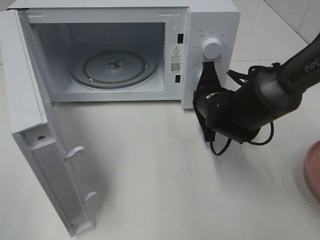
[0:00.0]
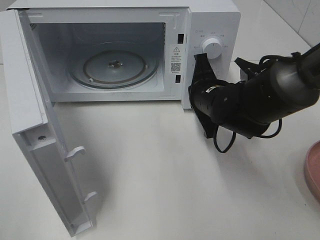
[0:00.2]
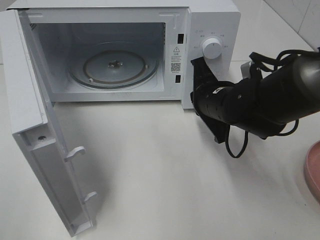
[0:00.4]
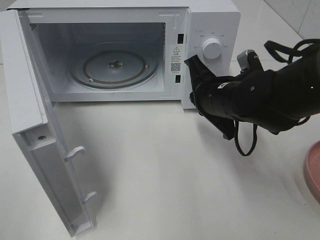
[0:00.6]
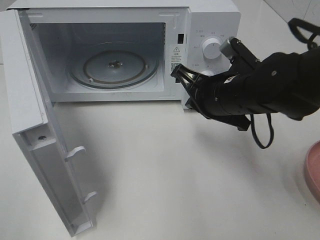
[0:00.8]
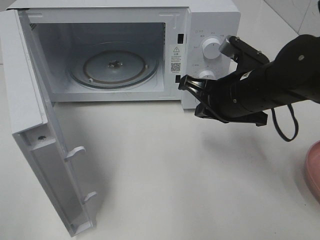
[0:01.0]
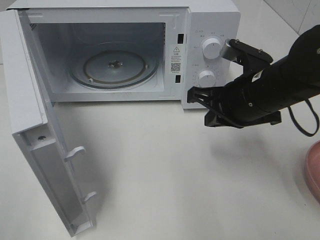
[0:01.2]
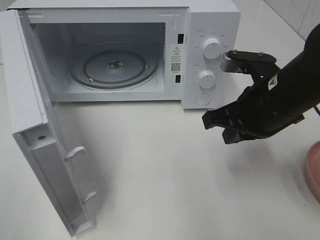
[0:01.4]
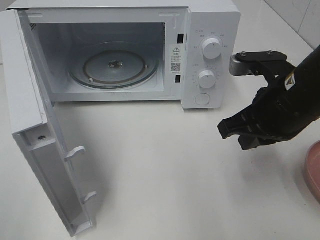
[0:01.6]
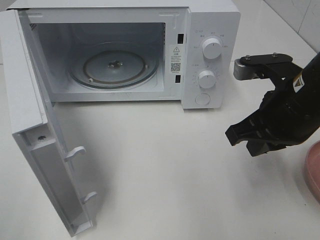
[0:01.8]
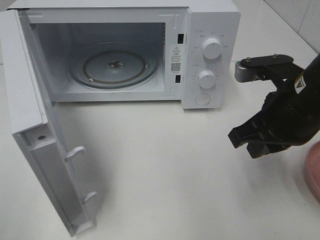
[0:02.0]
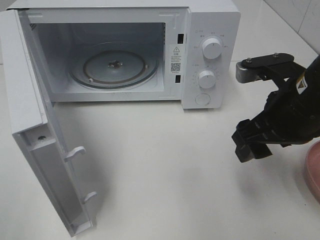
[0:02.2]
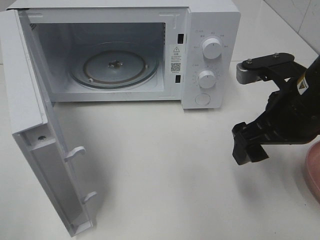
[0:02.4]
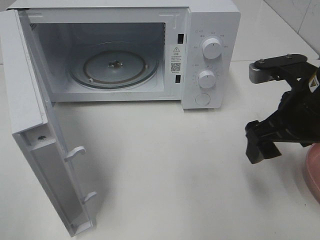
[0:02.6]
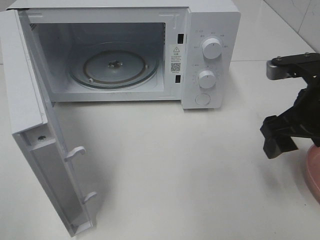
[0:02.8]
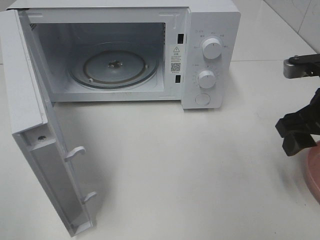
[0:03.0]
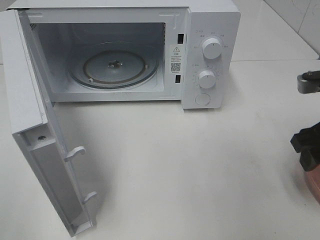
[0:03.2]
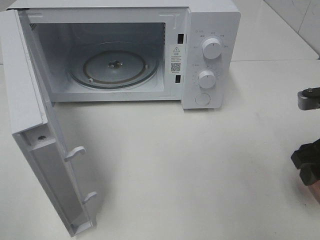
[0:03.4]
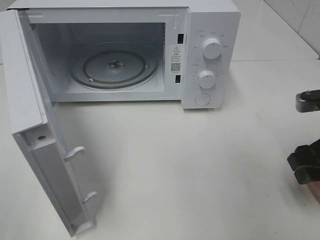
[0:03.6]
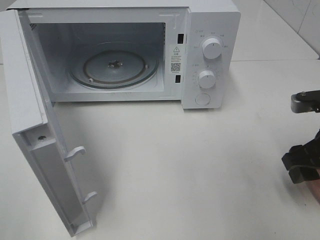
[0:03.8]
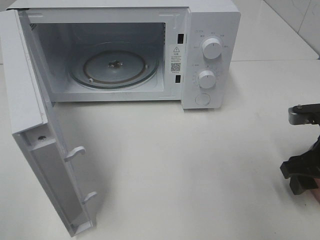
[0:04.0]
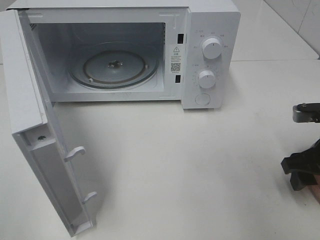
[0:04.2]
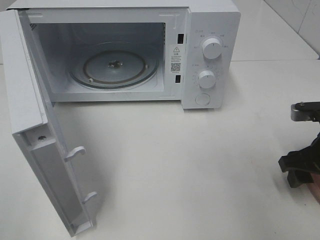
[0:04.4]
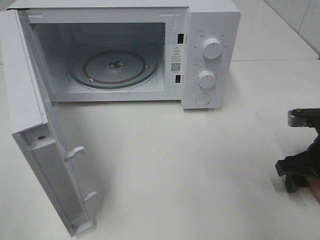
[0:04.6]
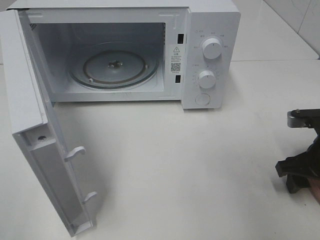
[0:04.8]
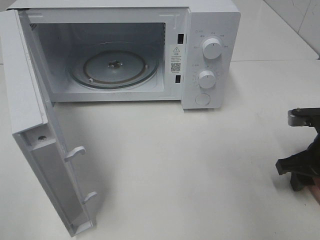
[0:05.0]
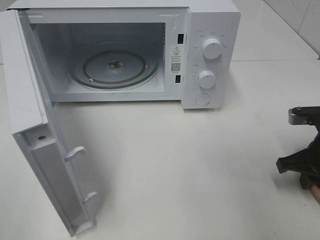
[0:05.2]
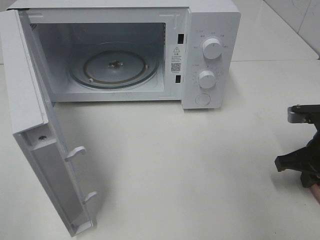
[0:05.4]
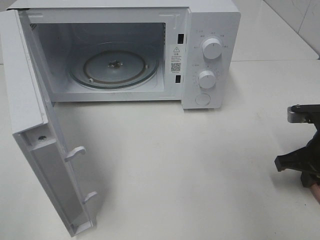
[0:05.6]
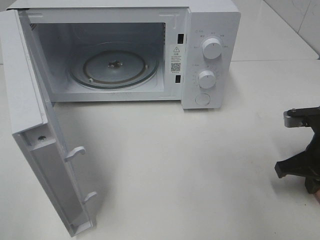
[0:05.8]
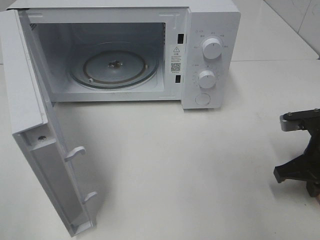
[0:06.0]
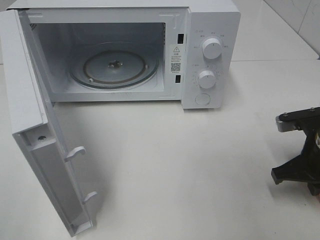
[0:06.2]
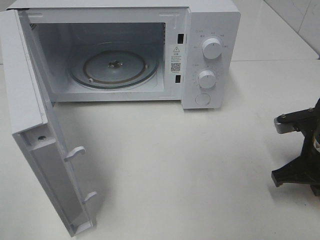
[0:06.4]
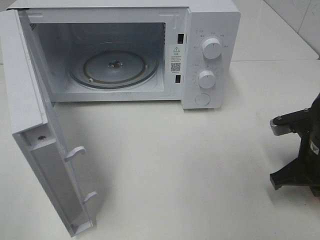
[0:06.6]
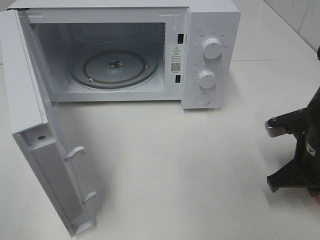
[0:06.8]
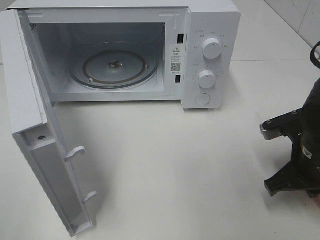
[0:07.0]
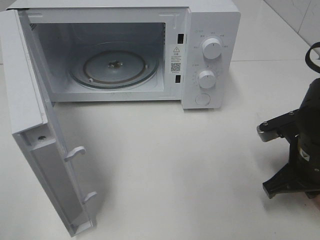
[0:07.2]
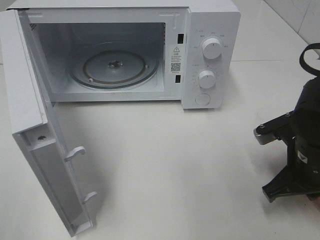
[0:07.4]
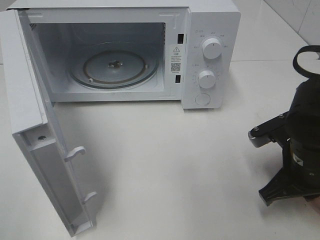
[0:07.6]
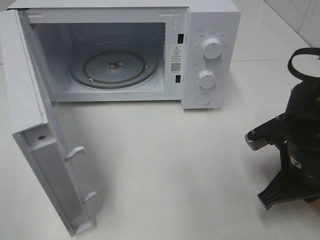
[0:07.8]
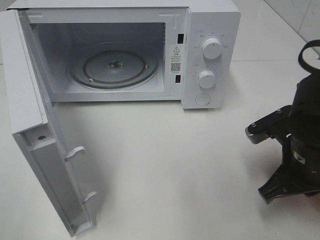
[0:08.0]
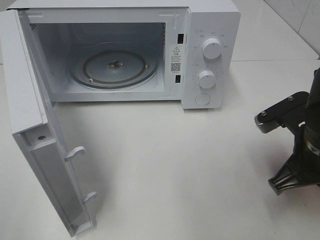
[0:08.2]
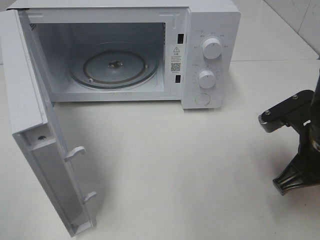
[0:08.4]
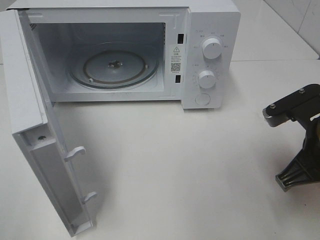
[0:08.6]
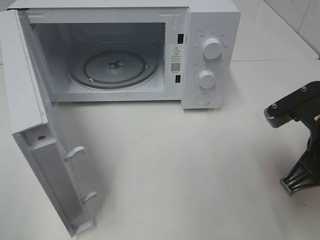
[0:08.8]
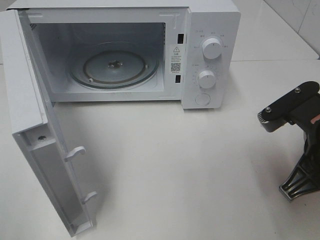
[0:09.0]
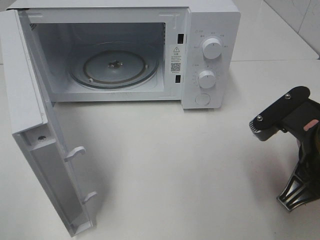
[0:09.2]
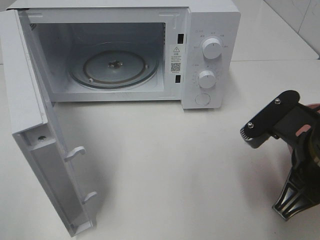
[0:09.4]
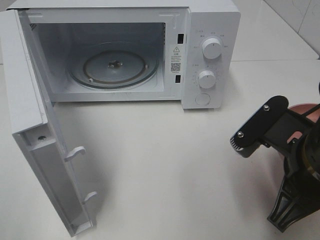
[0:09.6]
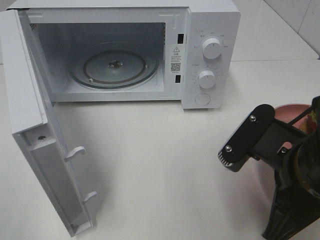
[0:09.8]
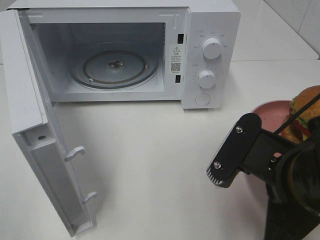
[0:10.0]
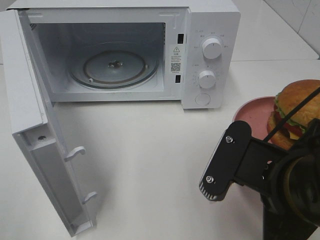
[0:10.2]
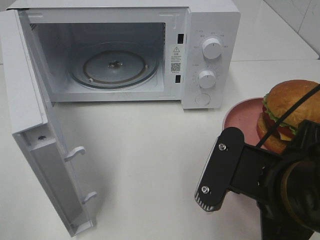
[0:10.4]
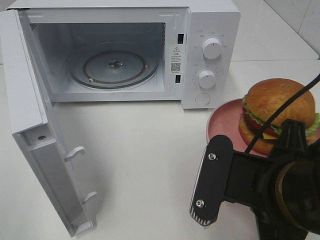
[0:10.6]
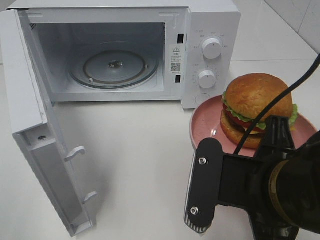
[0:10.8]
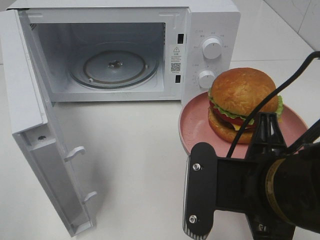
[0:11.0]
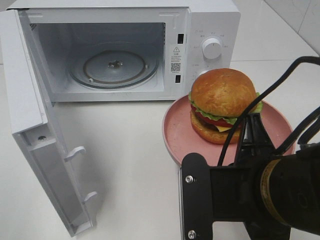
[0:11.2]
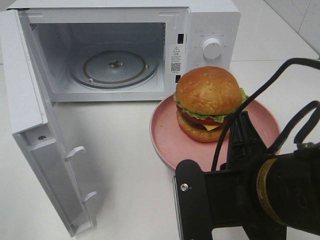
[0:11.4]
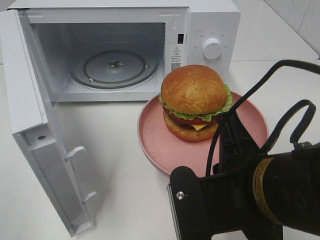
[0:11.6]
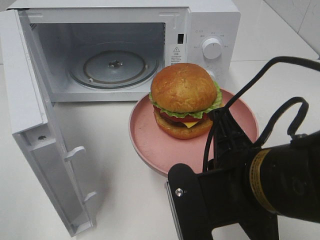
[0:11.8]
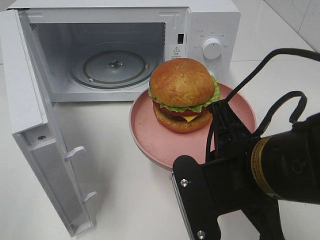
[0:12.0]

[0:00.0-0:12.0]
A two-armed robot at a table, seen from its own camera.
Task of the whole recording: Heat the burger.
Step, 0:00.2 to 0:05.8: Right hand: grab the plate with the hamburger.
0:00.0 to 0:01.6: The right gripper goes some 15 cm upward, backward and to the right.
0:01.6 to 0:03.0: The right gripper moves to the right, about 10 cm, and opens.
0:03.0 to 0:04.4: The right gripper moves downward, some 10 cm.
0:04.4 to 0:06.0: The right gripper closes up.
0:06.0 to 0:07.6: The right gripper travels to the left by approximately 5 cm.
0:07.6 to 0:09.0: The right gripper travels upward by roughly 5 cm.
0:09.0 to 0:10.4: The right gripper travels to the left and backward by some 10 cm.

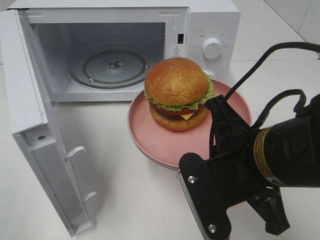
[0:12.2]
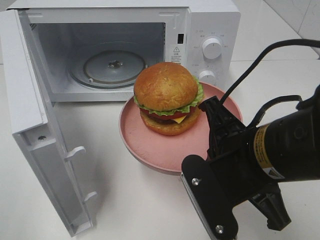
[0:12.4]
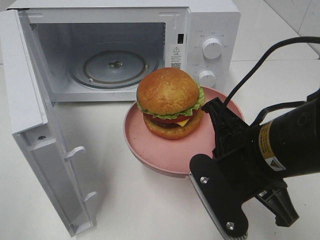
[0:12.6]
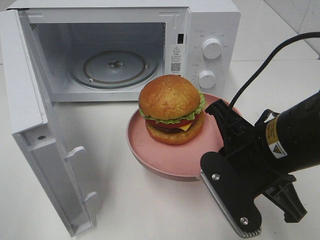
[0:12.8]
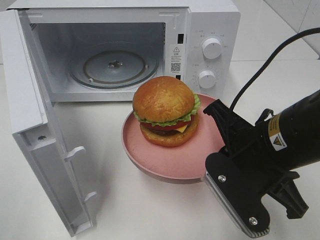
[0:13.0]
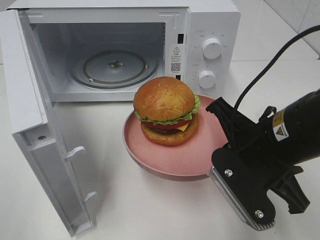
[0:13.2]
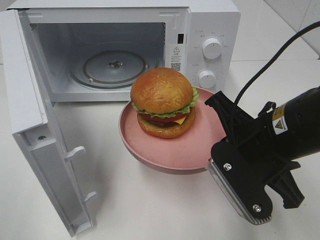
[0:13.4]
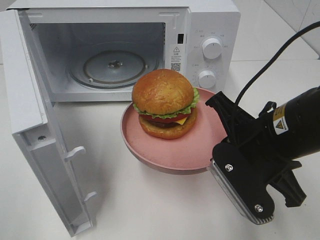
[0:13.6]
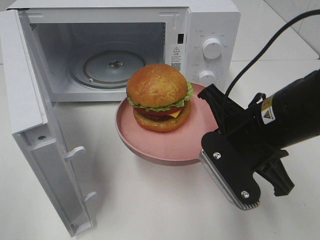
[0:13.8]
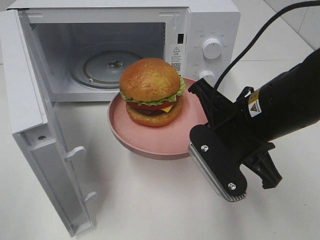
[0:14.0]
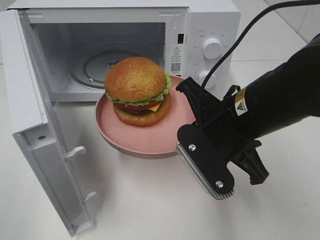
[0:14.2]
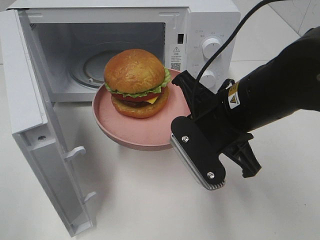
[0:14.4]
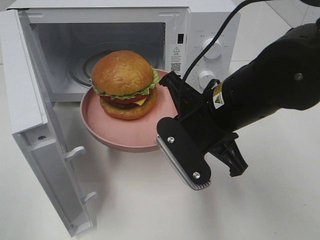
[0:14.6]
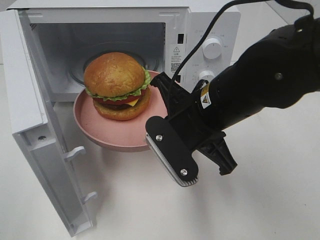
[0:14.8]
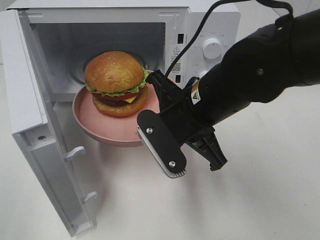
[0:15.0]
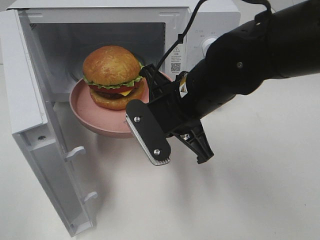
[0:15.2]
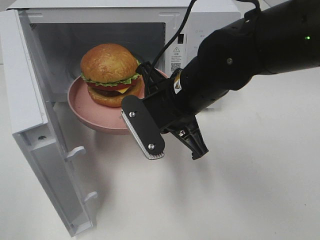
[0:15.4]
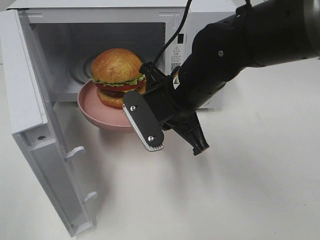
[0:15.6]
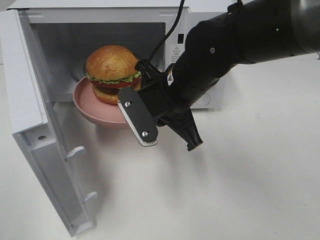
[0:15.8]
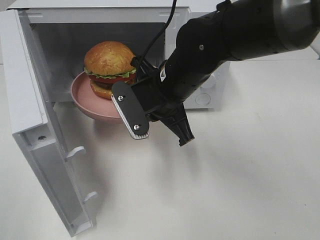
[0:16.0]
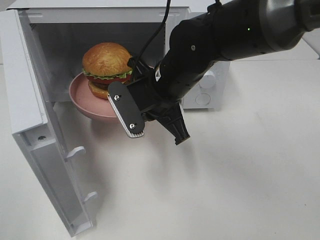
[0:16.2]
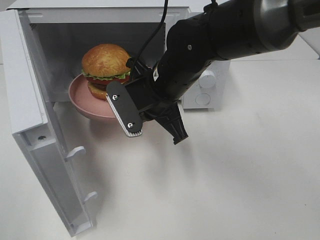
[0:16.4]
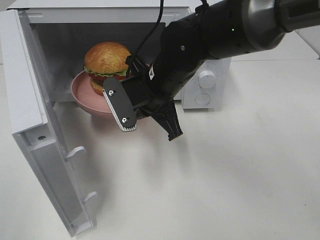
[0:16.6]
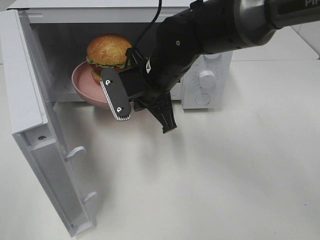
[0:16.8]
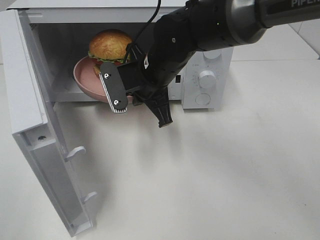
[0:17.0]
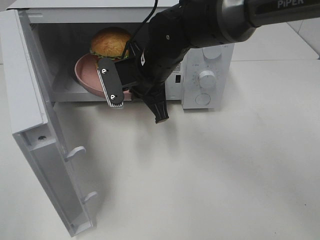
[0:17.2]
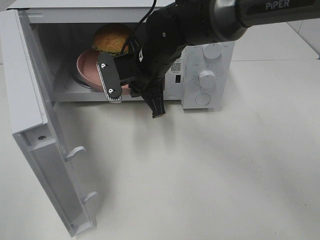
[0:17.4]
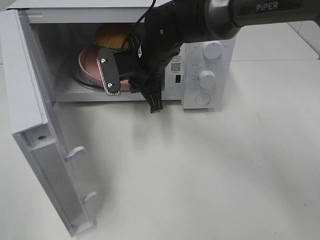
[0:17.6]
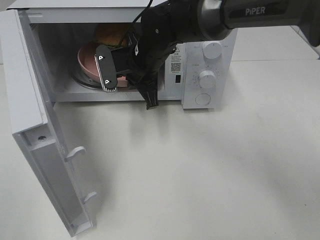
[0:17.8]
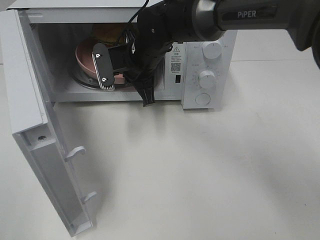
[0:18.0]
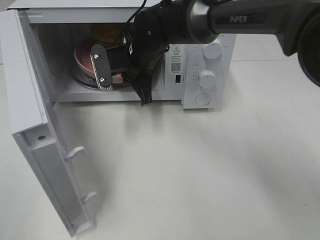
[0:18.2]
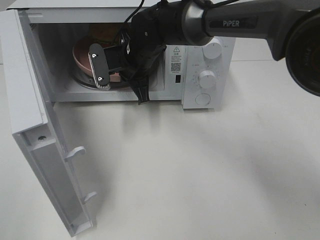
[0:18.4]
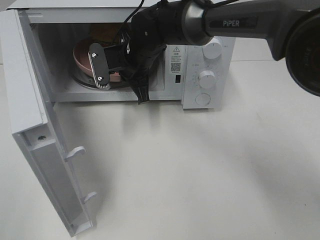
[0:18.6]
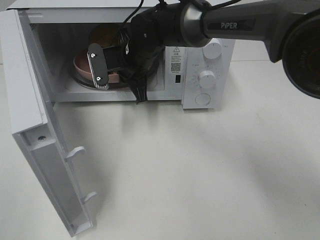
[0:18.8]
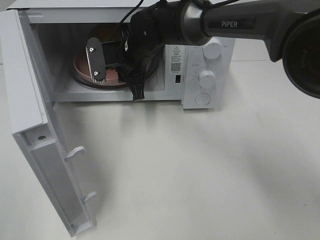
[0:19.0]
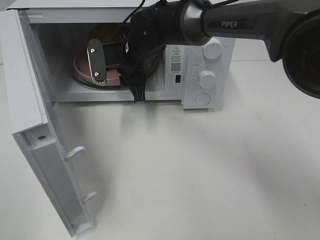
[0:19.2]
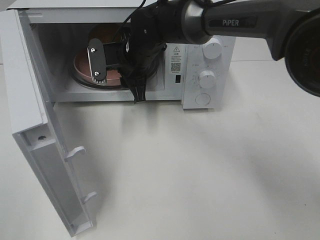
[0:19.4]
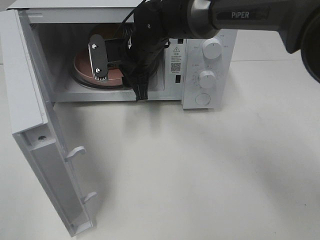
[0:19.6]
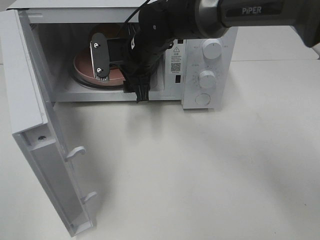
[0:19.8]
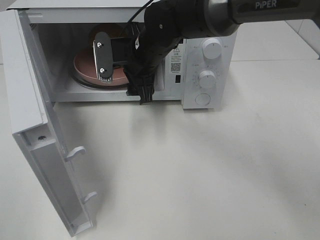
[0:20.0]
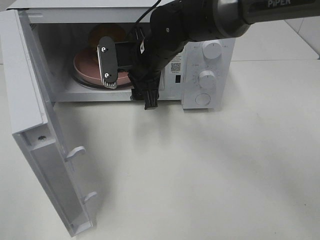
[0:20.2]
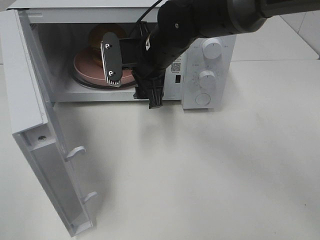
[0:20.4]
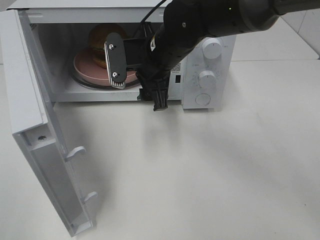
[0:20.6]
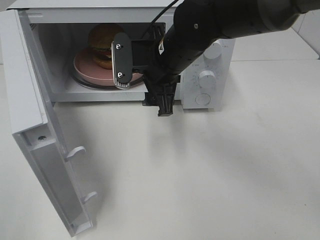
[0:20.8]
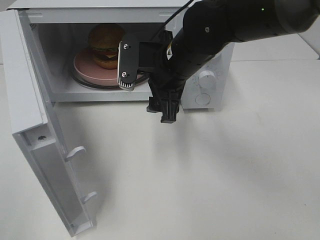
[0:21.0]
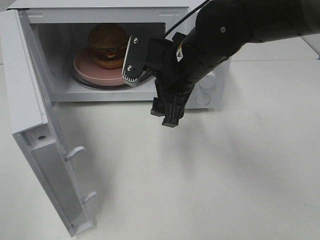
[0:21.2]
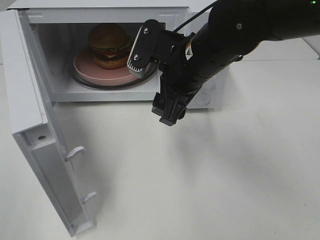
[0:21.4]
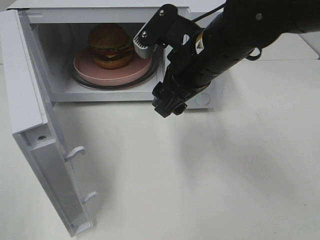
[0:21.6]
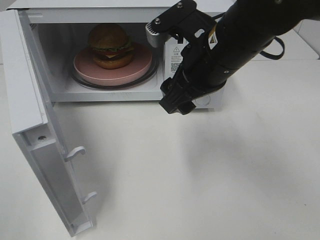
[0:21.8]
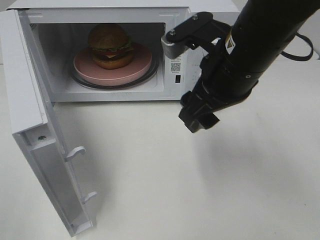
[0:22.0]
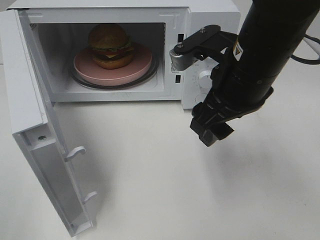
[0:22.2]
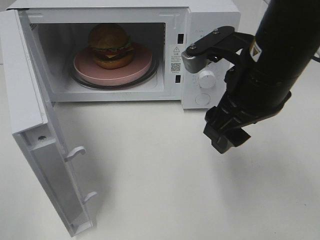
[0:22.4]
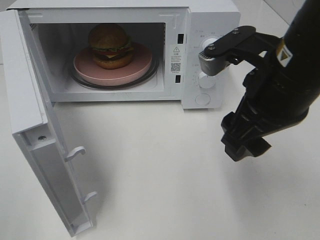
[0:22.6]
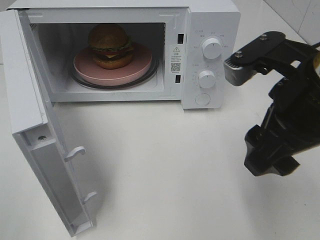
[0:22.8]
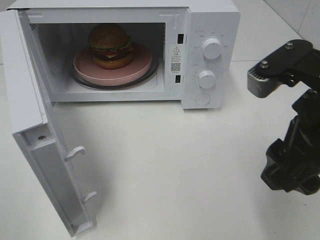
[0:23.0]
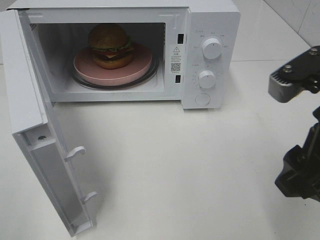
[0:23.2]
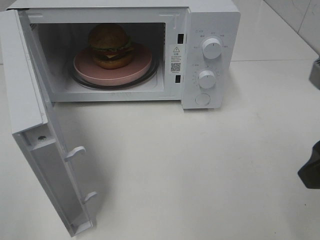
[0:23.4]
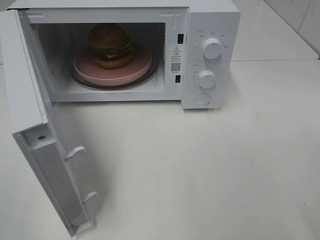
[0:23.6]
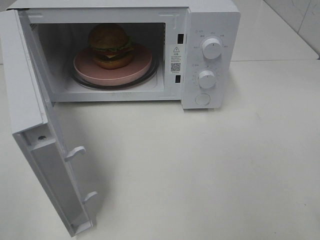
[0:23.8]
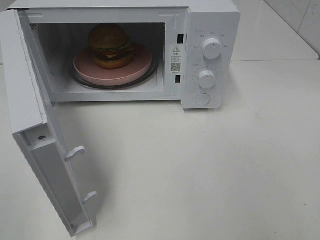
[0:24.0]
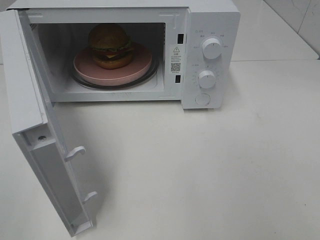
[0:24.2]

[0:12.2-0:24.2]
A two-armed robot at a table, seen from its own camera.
Task of the whole recording: Heat the burger.
Step, 0:12.2 to 0:19.0: Right hand: place the plate in the microwave.
0:12.2 to 0:13.8: The right gripper moves forward, some 5 cm.
0:13.8 to 0:15.2: The right gripper shifts approximately 10 cm to the left and forward.
0:15.2 to 0:16.6: The right gripper shifts some 5 cm forward.
0:16.6 to 0:18.2: The right gripper travels forward by roughly 10 cm.
0:18.2 to 0:19.8: The right gripper opens.
0:19.8 to 0:21.2: The right gripper heads backward and to the right, covering roughly 10 cm.
0:21.2 to 0:22.6: The right gripper shifts approximately 15 cm backward, to the right and upward.
0:22.6 to 0:24.2: The right gripper moves backward and to the right, approximately 20 cm.
